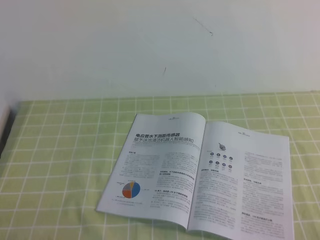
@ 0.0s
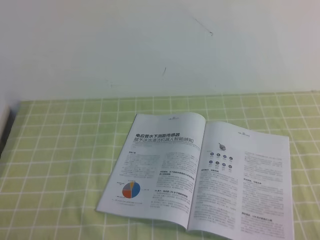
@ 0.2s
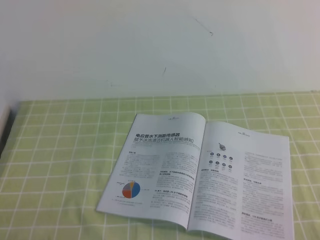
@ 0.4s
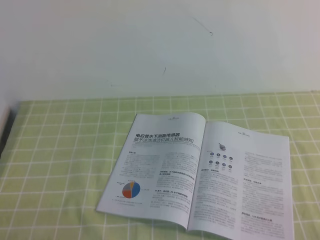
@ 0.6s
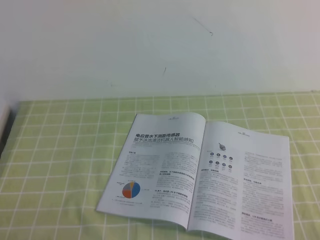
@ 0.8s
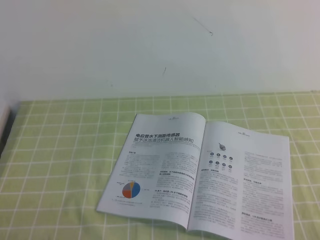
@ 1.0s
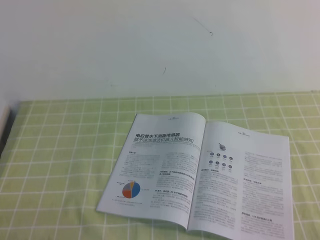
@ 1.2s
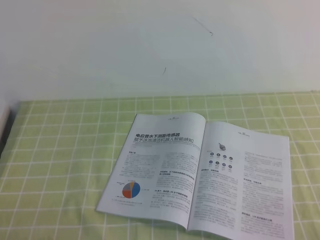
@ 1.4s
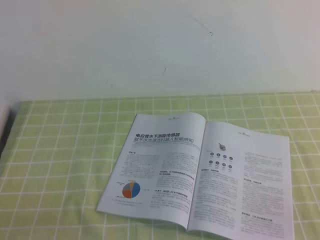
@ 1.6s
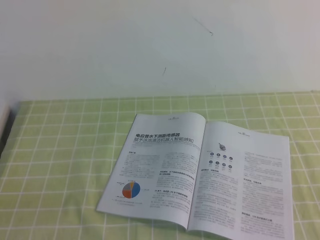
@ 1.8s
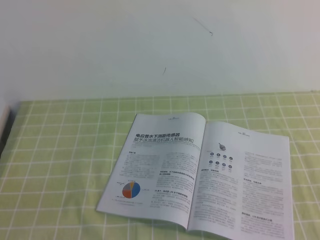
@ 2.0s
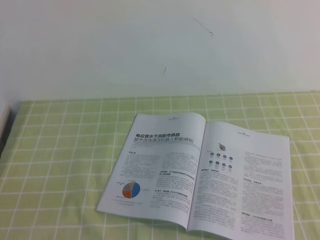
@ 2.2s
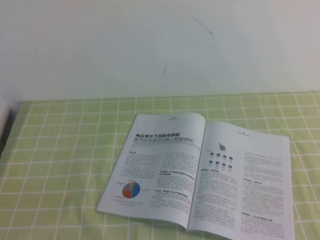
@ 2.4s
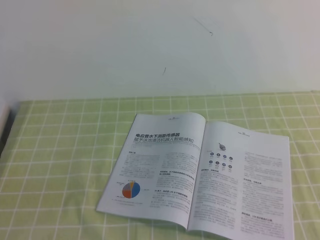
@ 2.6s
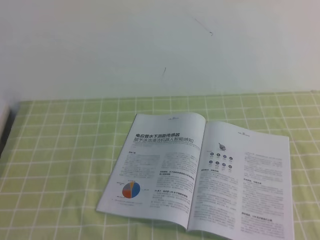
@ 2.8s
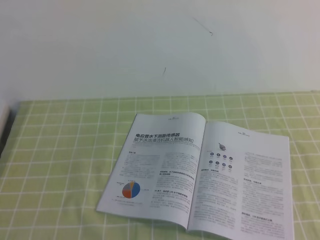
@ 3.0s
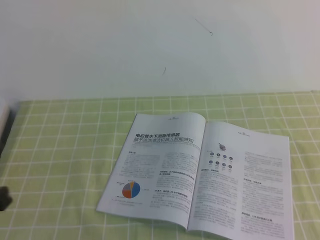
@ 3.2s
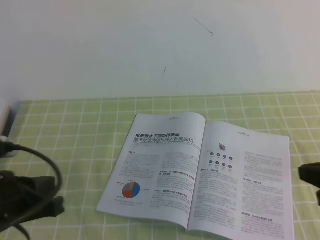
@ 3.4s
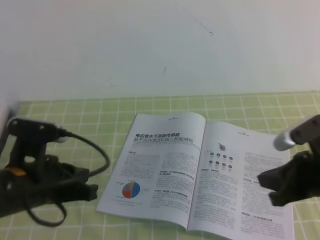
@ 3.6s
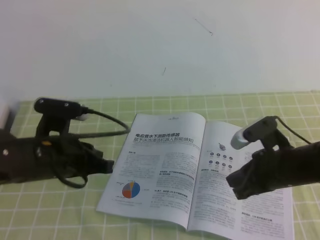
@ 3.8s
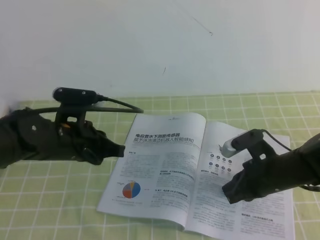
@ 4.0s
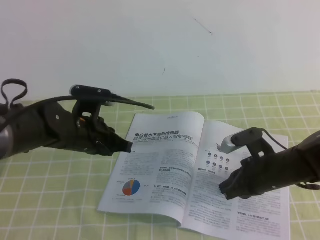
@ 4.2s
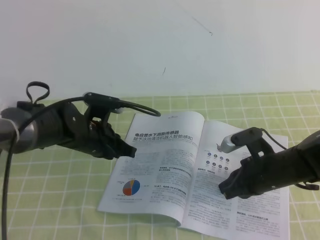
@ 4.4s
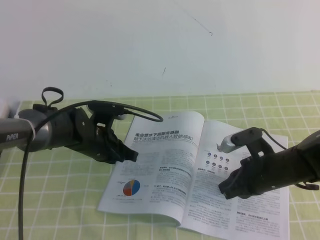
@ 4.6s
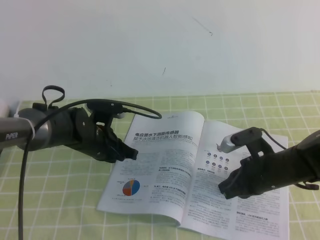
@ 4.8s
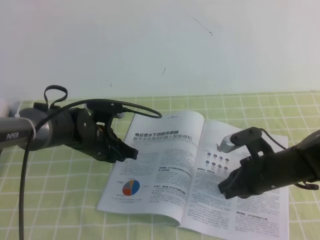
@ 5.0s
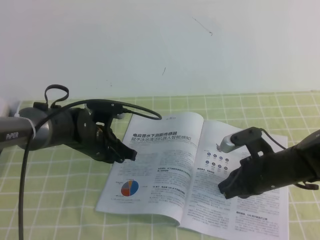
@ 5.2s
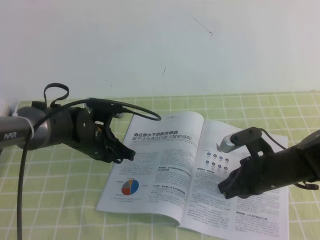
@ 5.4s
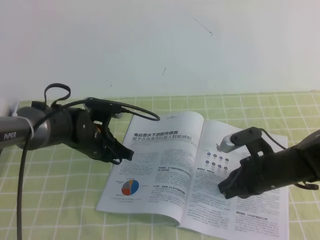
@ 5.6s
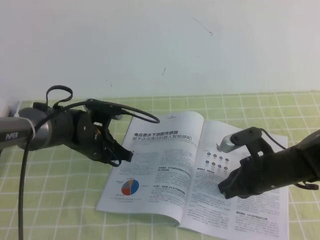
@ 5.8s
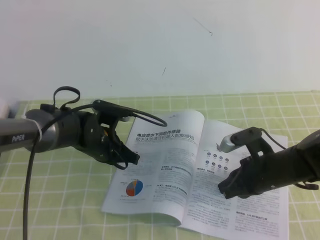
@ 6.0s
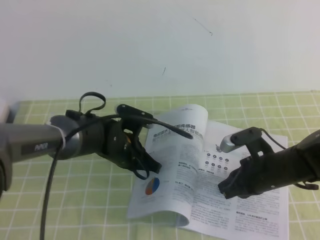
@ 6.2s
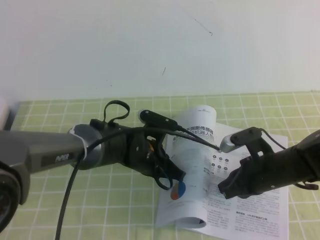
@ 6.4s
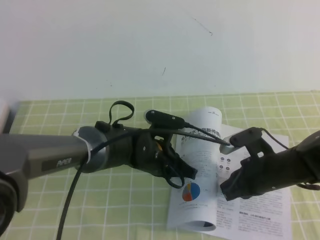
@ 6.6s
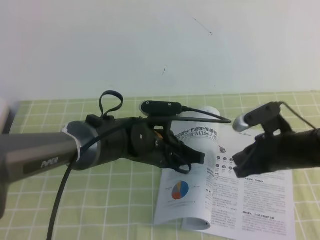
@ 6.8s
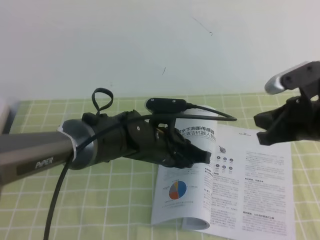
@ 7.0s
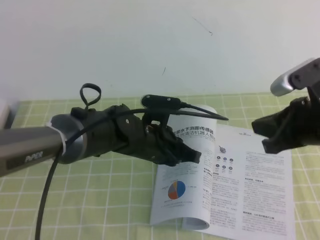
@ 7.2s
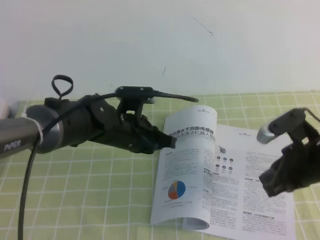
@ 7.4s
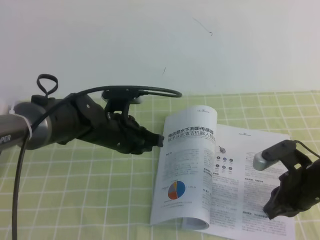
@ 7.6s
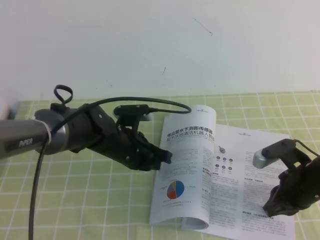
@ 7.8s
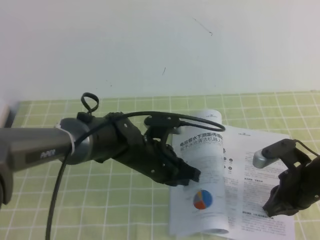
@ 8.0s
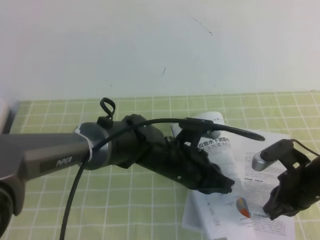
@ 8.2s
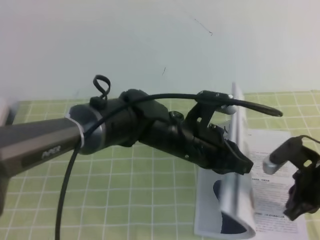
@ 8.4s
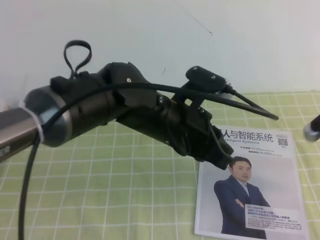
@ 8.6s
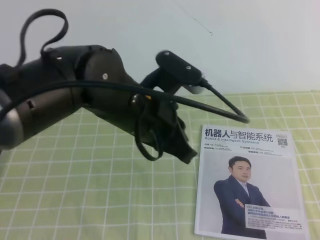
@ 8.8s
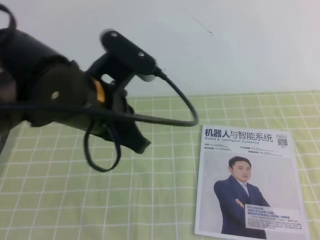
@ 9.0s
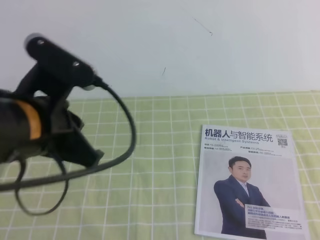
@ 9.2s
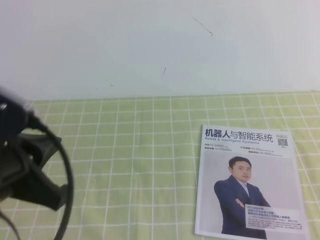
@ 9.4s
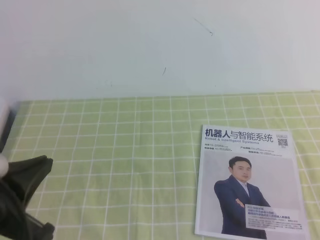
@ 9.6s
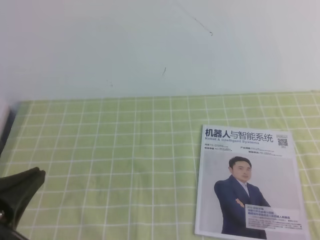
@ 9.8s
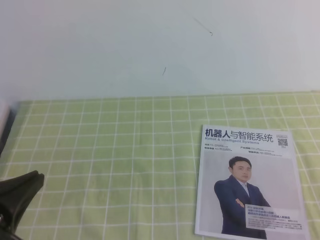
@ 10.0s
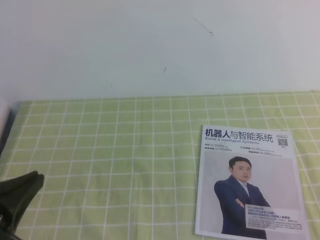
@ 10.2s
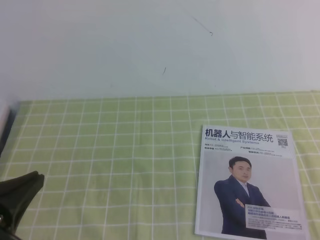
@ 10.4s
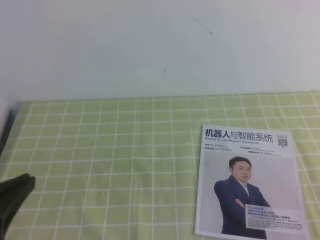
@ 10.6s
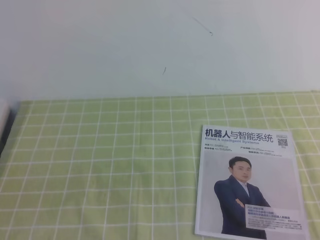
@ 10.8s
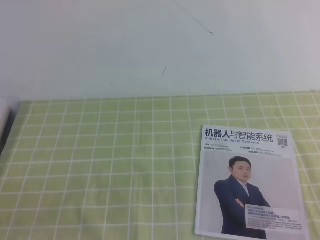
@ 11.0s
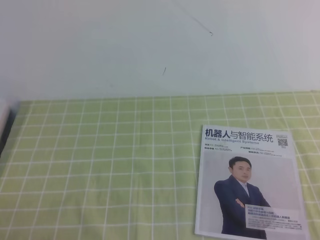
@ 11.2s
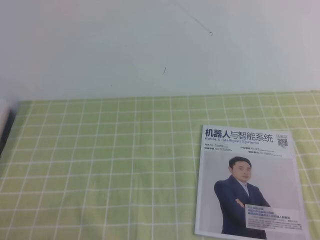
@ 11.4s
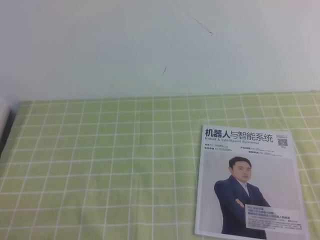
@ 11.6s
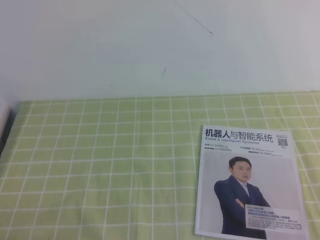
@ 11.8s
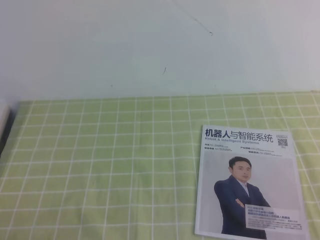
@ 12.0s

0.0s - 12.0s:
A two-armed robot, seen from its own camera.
Task of the whole recording: on the green tablecloth, hold the book with one hand and close it with the other.
3.0s - 4.4s: The left gripper shifts roughly 35 cm forward, downward and to the right. Meanwhile the right gripper is displaced downward, forward and to the left by some 35 cm.
4.4s - 6.0s: The grippers stay close to where they were, moving slightly.
6.0s - 7.6s: The right gripper heads to the right, covering approximately 5 cm, and goes upward and returns, about 15 cm each way.
7.6s - 9.0s: The right gripper moves upward, to the right and backward, roughly 20 cm. The left gripper heads upward and backward, covering roughly 20 cm.
9.0s - 10.4s: The left gripper moves backward and to the left, some 20 cm, while the right gripper heads backward and downward, covering approximately 15 cm.
10.4s - 12.0s: The left gripper is displaced downward by some 15 cm.

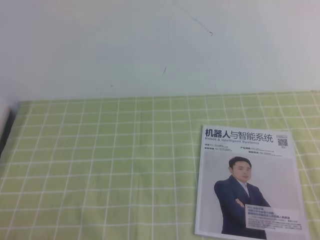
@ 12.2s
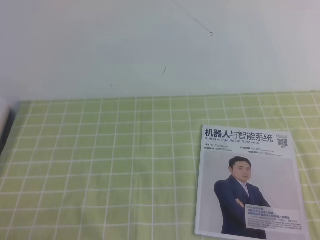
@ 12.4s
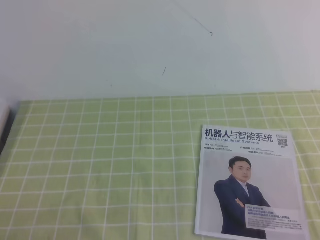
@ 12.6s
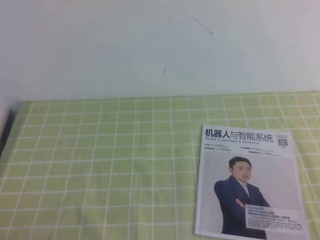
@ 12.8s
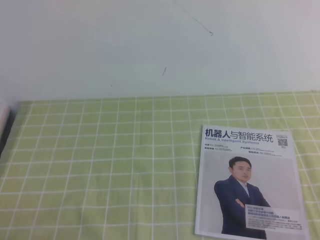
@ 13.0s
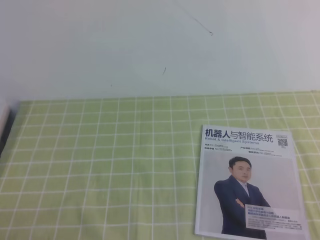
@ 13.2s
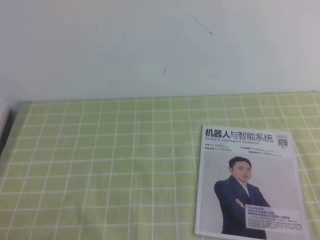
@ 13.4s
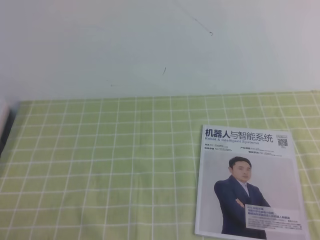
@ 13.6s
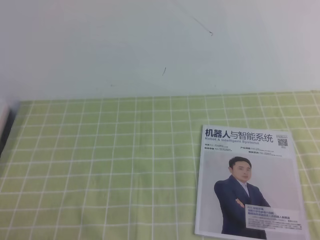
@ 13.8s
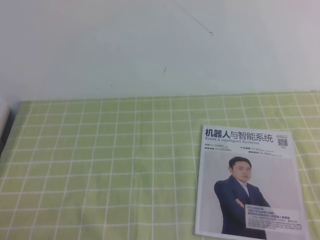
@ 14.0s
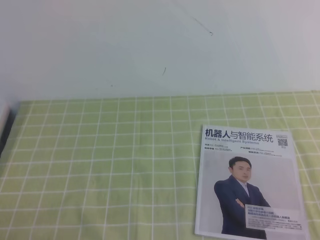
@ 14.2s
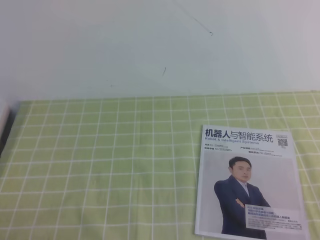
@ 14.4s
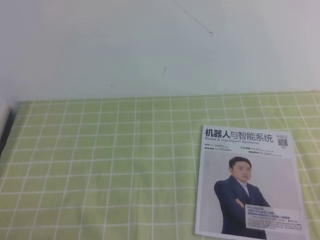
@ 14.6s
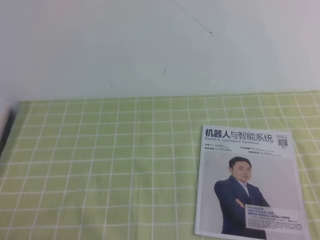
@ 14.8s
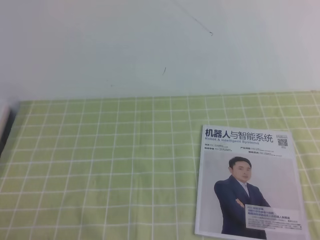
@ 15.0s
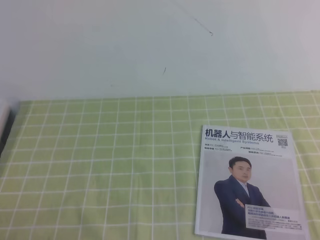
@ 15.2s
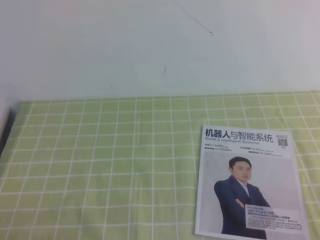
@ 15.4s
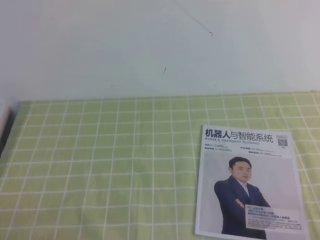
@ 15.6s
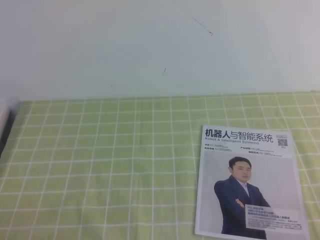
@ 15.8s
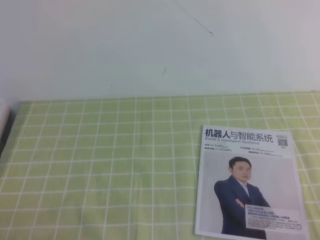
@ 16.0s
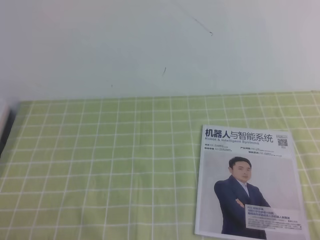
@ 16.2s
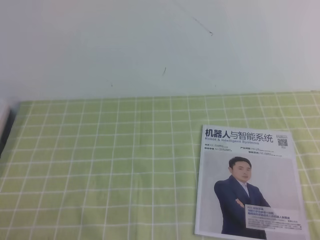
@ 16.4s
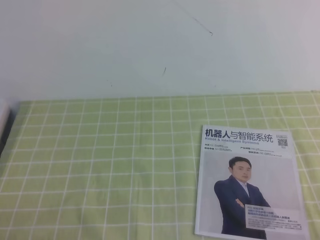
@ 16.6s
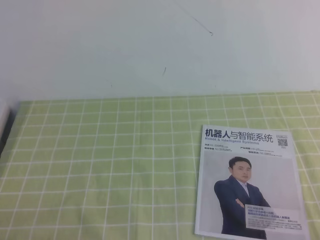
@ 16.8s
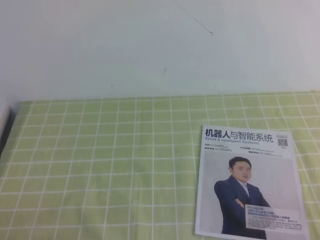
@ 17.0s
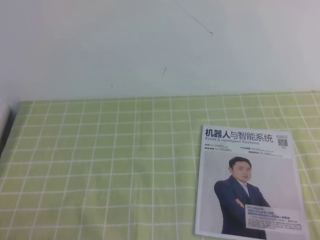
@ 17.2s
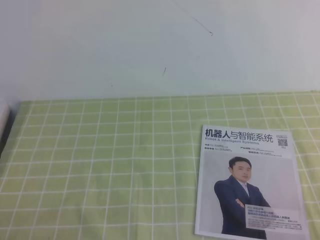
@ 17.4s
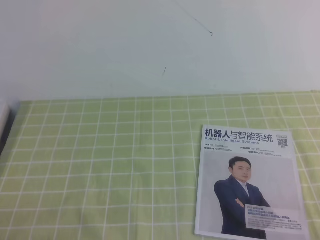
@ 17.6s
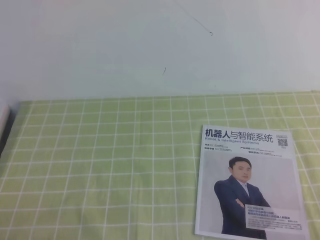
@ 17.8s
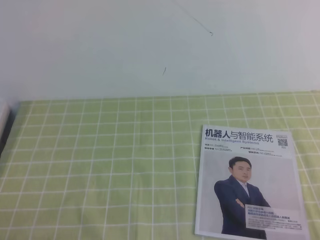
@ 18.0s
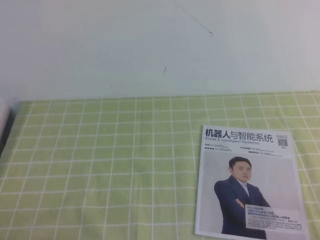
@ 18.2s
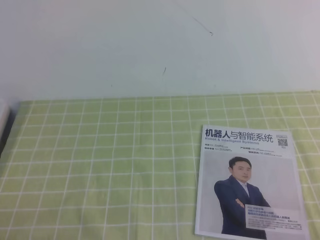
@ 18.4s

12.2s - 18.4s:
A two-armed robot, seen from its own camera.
Task of the whole recording: on the green tablecloth, hold the book with one hand and close it with the other.
12.2s - 13.8s: The two grippers keep their place.
16.8s - 18.4s: Neither gripper changes place.

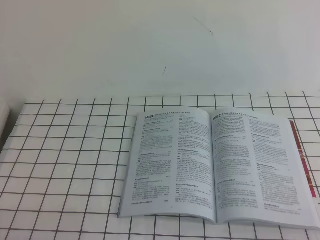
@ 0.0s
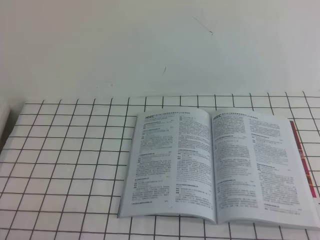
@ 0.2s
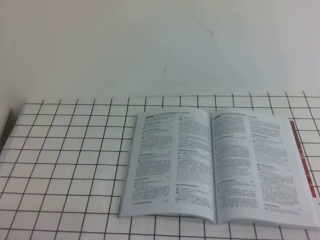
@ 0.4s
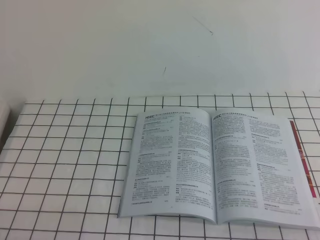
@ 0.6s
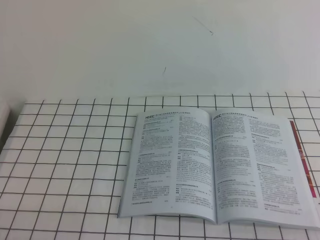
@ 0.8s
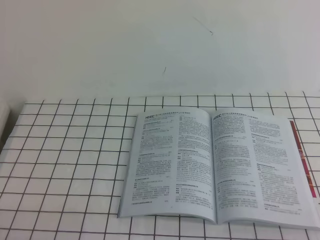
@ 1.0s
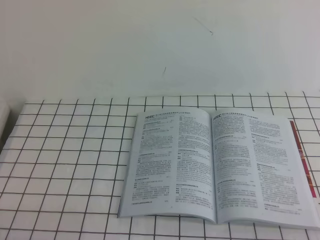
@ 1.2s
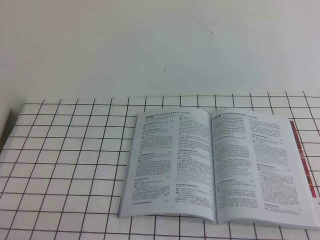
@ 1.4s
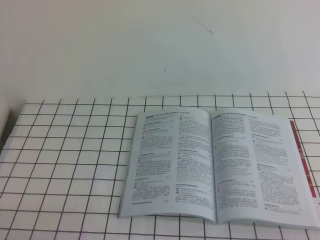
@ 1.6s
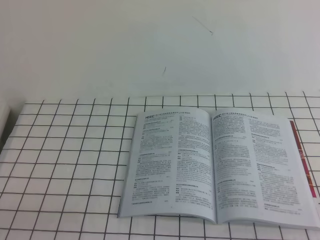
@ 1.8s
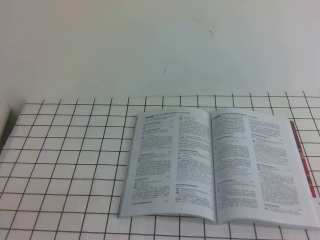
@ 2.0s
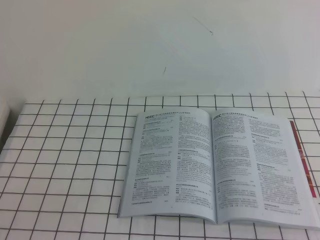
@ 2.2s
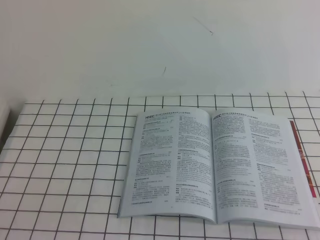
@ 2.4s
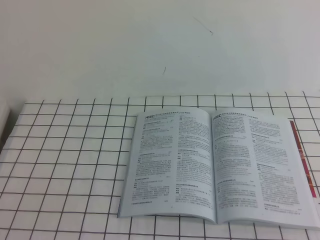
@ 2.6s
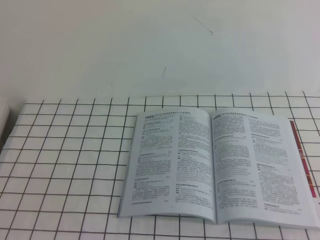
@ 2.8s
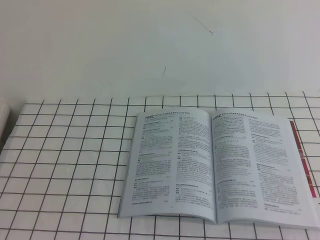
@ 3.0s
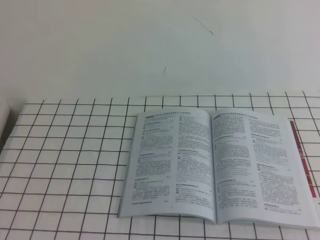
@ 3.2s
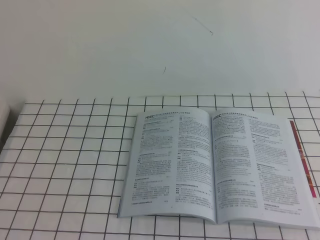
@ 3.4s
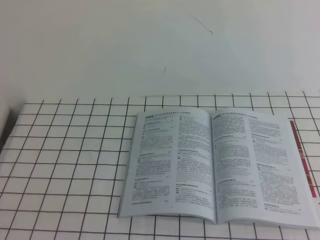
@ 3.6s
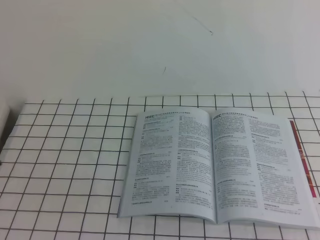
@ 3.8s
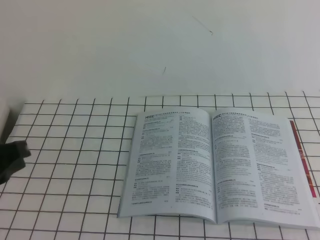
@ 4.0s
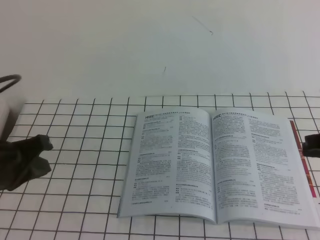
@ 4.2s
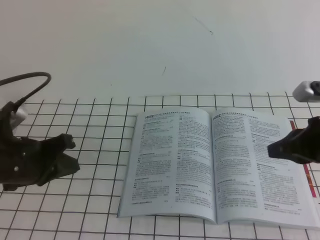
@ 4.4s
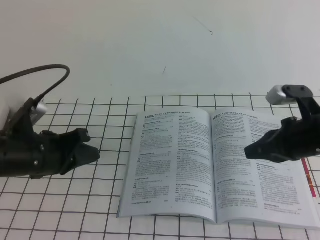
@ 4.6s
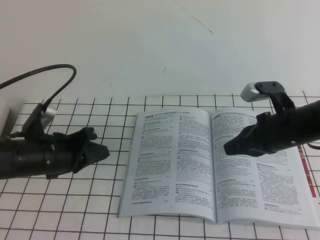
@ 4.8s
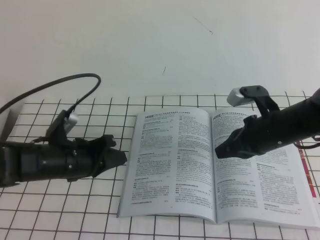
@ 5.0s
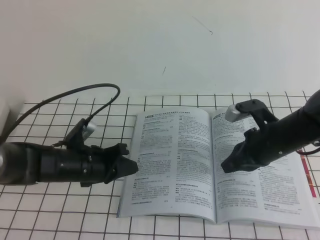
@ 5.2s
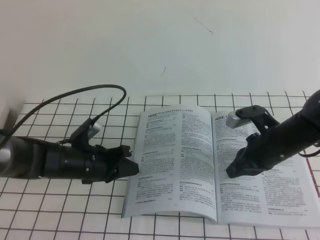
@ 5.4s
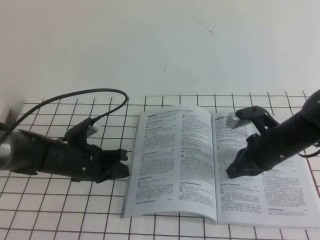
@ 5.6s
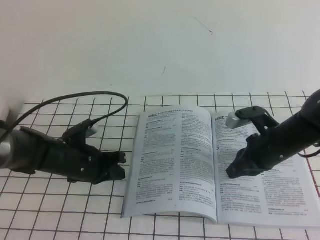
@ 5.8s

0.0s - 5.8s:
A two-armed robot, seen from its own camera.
Task of the whole recording: on the white tablecloth, hold the book with one hand and close it with the other.
0.0s - 1.4s: Both grippers stay about where they are.
2.8s - 4.4s: The grippers both shift forward by some 25 cm.
4.4s - 5.8s: The right gripper shifts roughly 15 cm downward, forward and to the left; the left gripper travels downward, forward and to the right by about 20 cm.
